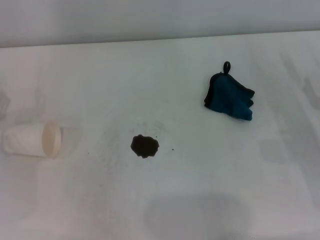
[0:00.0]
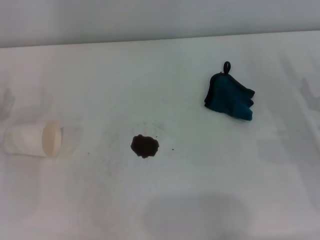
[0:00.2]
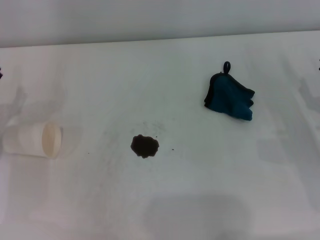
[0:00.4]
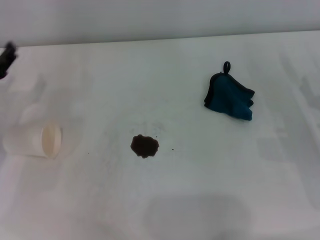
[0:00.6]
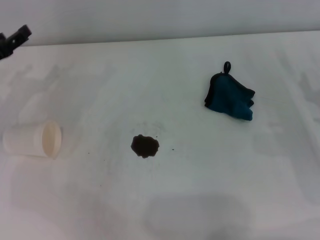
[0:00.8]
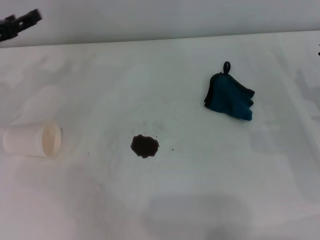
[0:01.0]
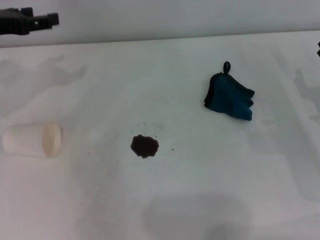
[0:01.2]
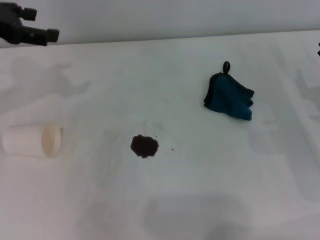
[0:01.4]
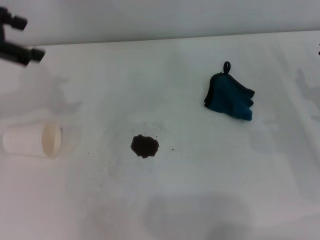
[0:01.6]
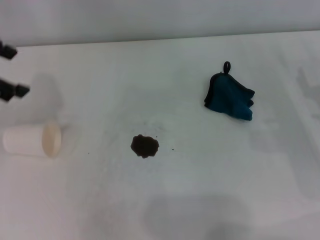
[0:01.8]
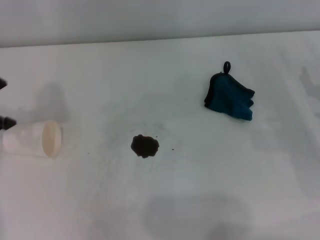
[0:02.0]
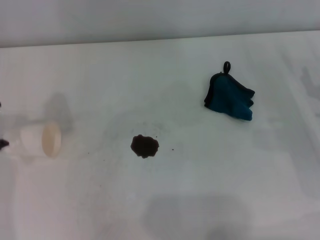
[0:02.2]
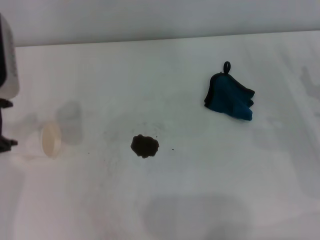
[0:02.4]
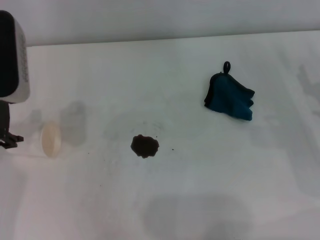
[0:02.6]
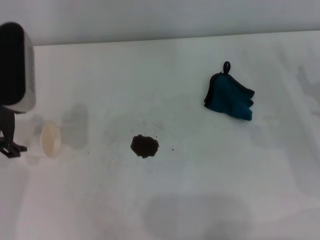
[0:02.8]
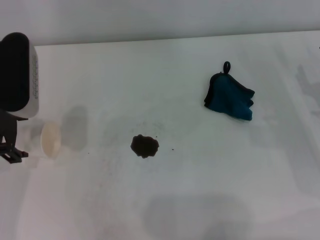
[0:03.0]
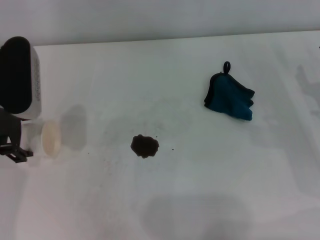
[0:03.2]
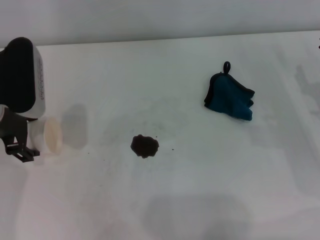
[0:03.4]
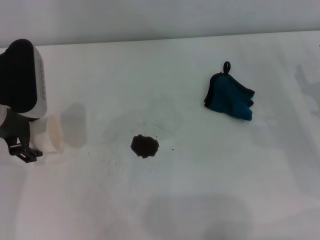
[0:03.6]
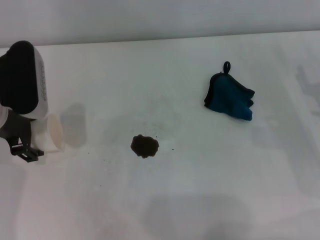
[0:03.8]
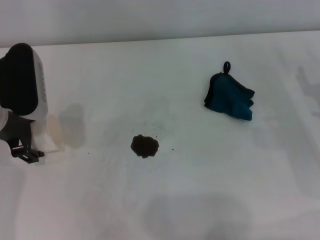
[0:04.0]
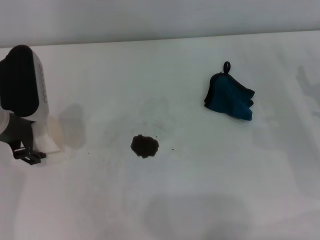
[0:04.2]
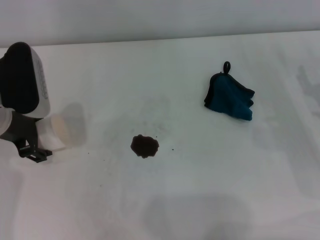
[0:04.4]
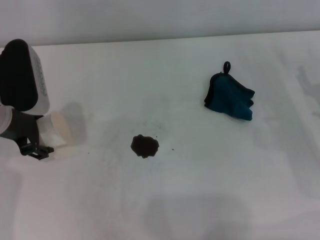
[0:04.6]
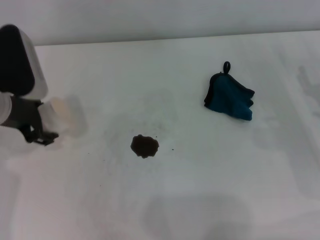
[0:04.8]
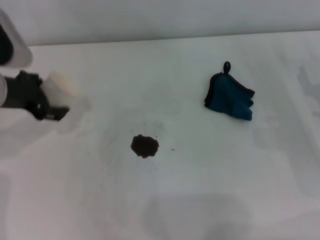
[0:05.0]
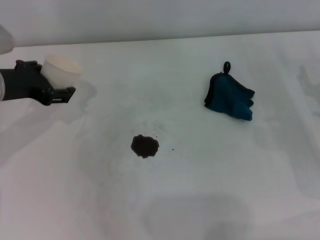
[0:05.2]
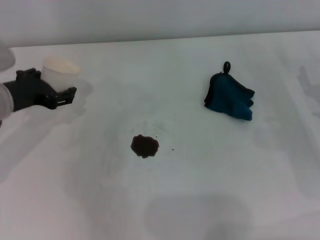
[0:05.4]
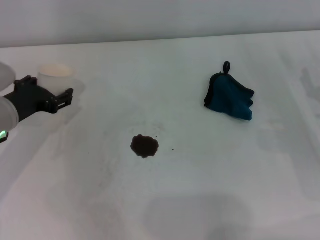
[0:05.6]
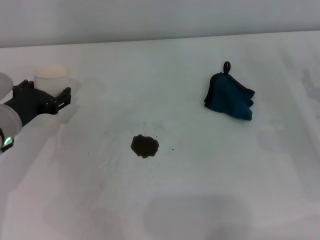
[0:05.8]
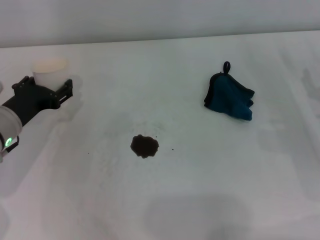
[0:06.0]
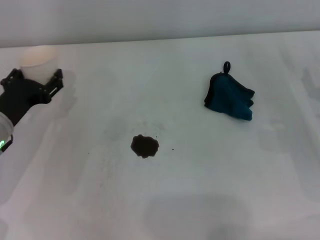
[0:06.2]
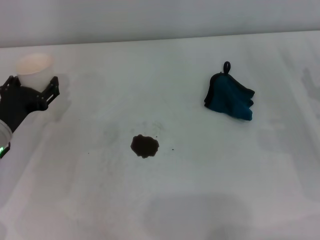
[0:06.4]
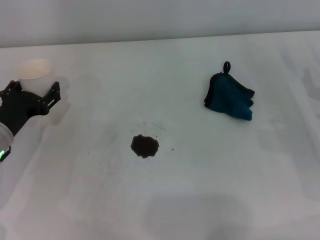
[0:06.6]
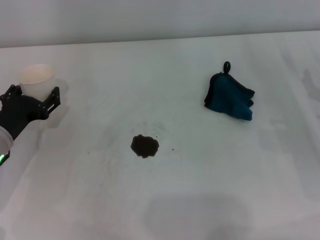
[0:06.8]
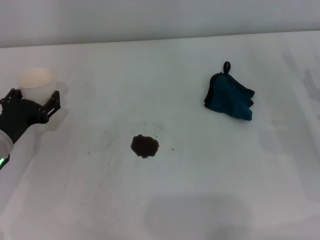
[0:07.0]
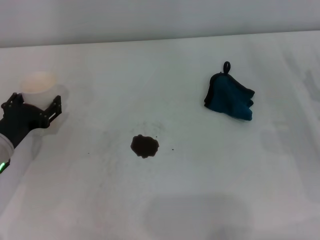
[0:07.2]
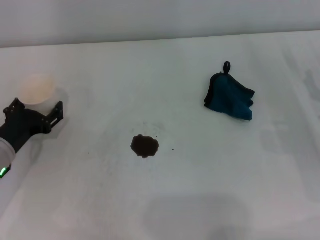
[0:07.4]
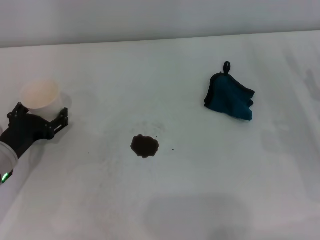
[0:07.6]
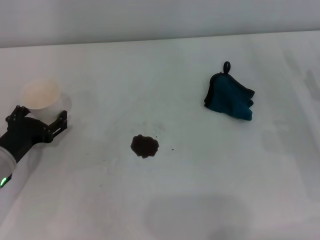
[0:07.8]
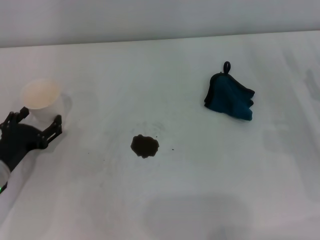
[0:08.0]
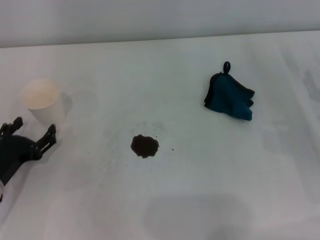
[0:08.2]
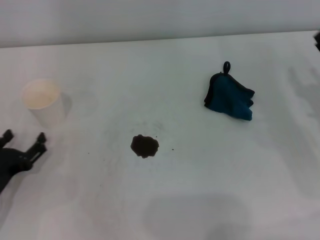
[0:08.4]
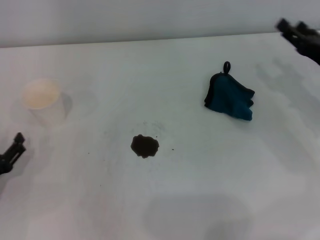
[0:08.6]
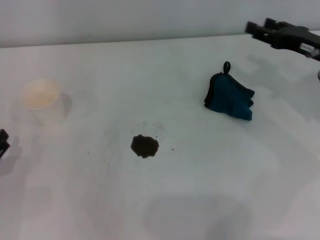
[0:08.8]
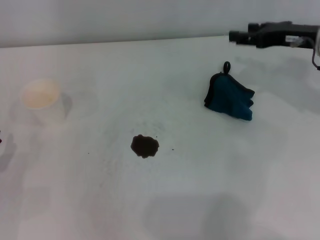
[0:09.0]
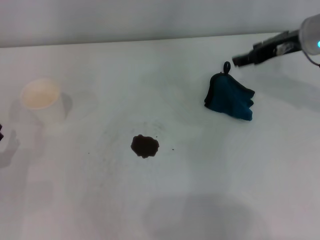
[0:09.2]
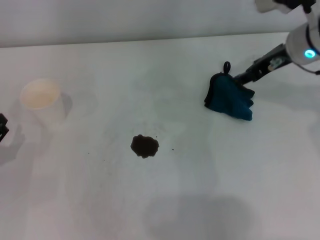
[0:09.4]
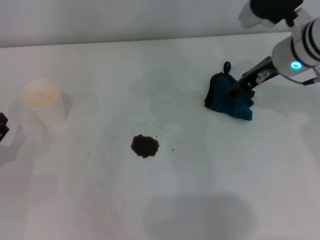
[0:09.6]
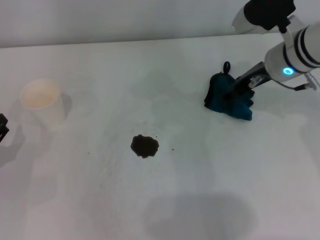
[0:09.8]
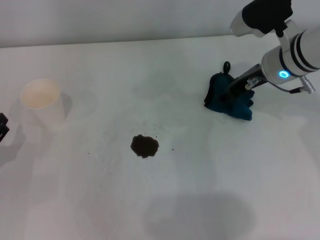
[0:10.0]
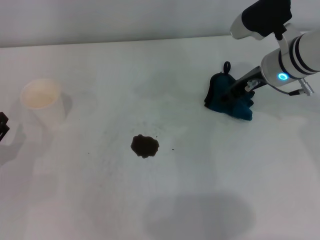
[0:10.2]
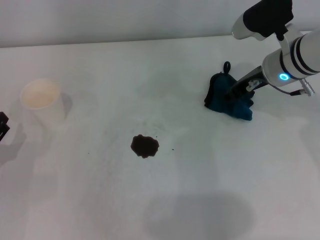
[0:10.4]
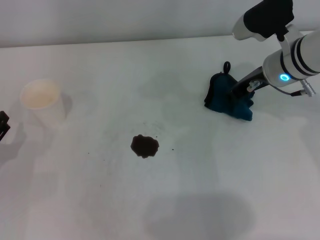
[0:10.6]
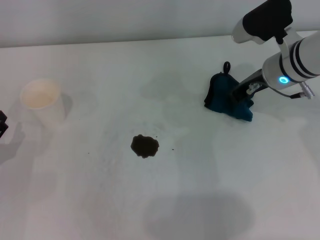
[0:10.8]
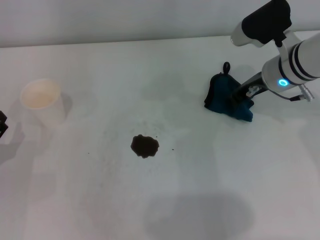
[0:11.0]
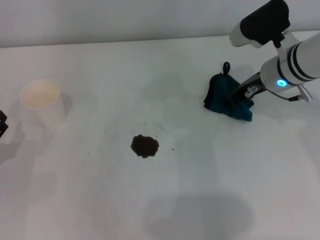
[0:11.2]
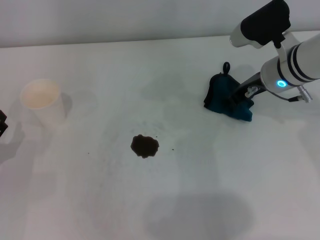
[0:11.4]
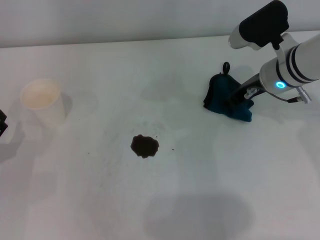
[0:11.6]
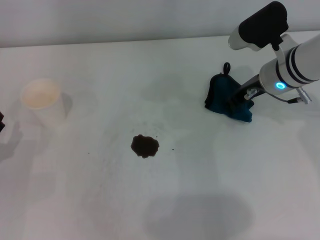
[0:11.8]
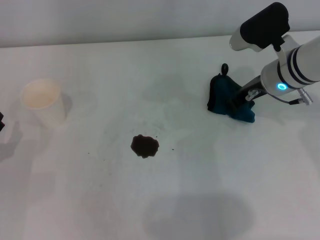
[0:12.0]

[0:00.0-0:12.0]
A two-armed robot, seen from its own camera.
Step, 0:00.0 to 0:03.2: Grasp the paper cup with the left gripper.
Step, 0:03.4 to 0:07.4: Stand the paper cup upright with the left gripper.
Step, 0:07.6 to 0:10.6: Grasp the rag with the right gripper.
0:00.0 to 0:01.6: The left gripper shifts some 25 cm upward.
0:01.6 to 0:03.0: The left gripper heads downward and to the right, covering about 10 cm.
0:03.0 to 0:04.4: There are only small adjustments of the grippers.
0:04.4 to 0:06.0: The left gripper heads downward, covering some 10 cm.
0:06.0 to 0:07.6: The left gripper shifts by about 5 cm.
0:07.6 to 0:09.0: The right gripper is displaced upward, forward and to the left by about 15 cm; the left gripper heads backward and to the left, covering some 10 cm.
0:09.0 to 0:10.4: The right gripper is displaced to the left by approximately 5 cm.
0:10.4 to 0:12.0: The right gripper closes.

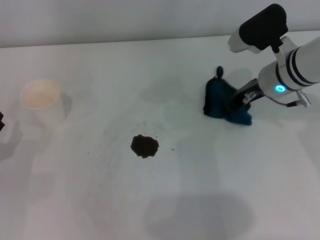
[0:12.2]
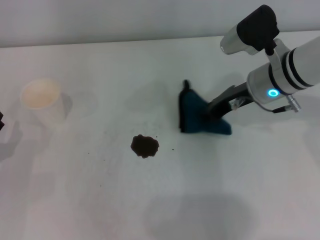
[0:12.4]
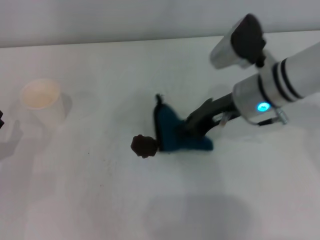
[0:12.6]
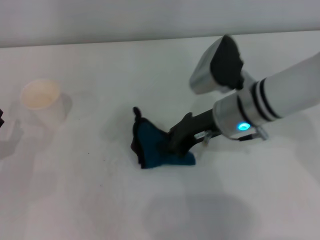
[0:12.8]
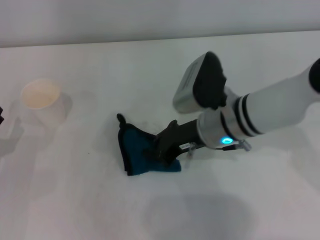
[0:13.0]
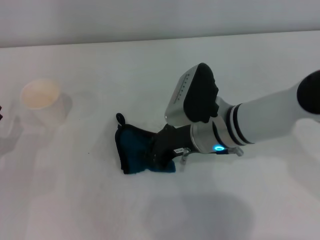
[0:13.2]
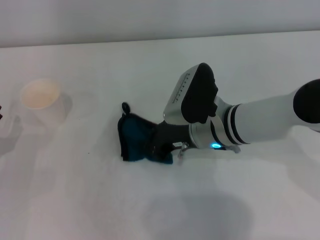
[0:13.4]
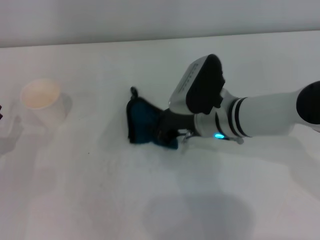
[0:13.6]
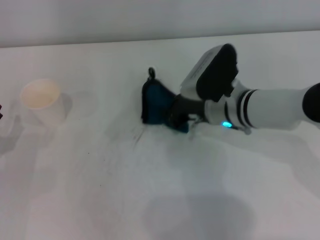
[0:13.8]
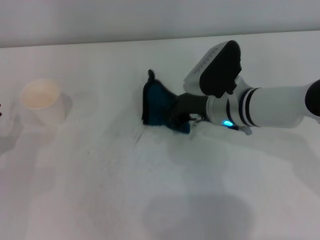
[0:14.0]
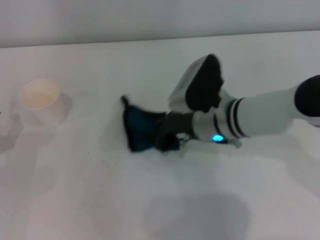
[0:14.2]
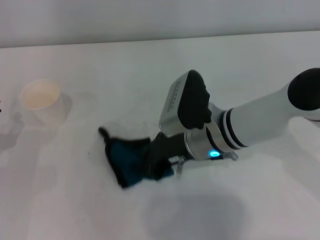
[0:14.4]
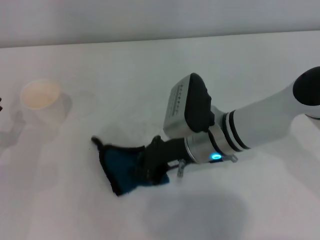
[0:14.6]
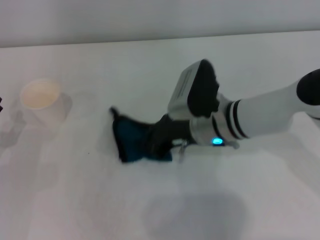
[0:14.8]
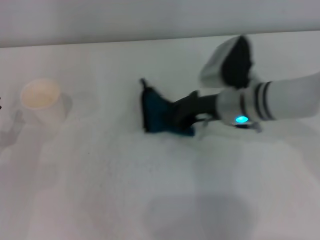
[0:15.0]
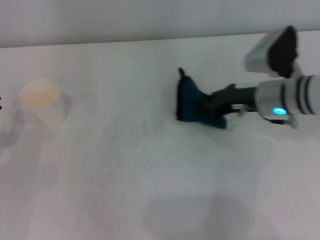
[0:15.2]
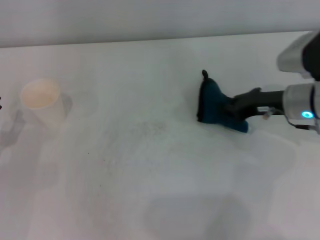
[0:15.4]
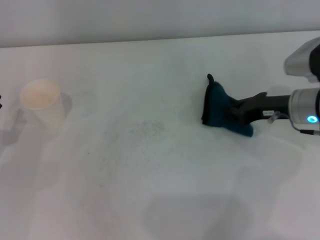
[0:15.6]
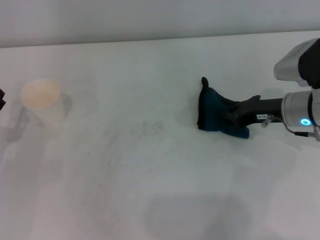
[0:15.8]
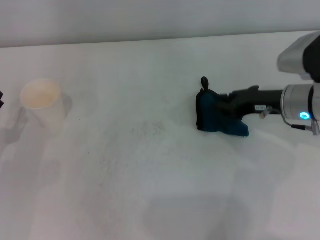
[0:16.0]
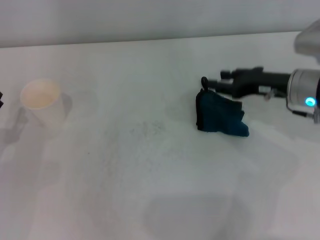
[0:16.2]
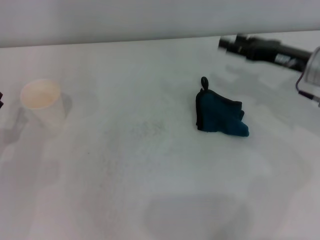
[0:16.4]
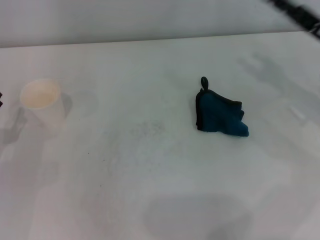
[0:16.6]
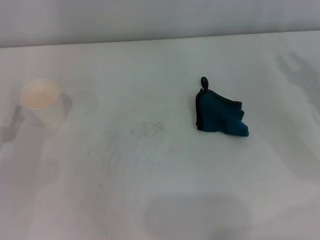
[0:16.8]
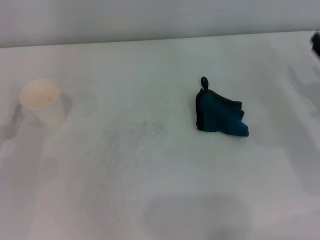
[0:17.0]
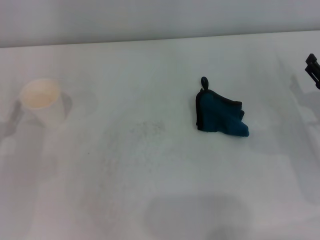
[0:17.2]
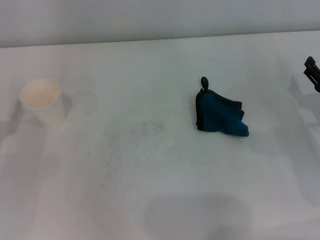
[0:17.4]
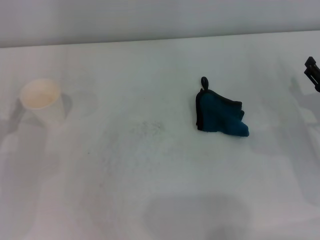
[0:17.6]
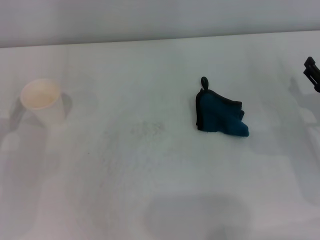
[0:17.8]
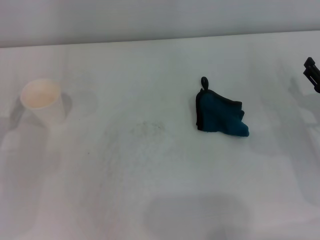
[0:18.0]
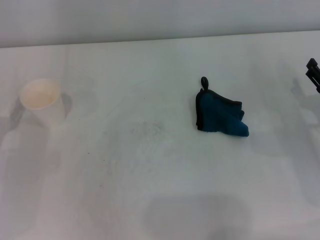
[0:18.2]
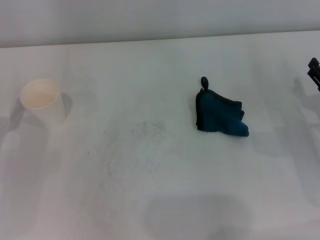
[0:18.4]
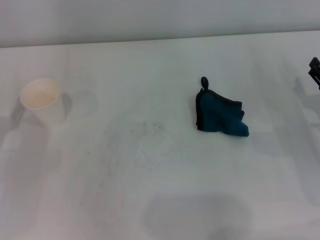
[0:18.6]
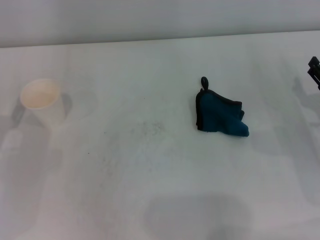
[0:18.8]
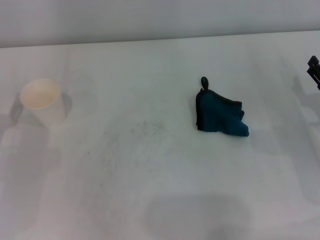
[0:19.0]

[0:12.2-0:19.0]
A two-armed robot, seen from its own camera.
Step, 0:12.2 to 0:15.2: Wipe the stains off the table with the right gripper.
Step, 0:15.4 to 0:15.8: Place the rag on the table with the right gripper.
0:12.2 to 0:13.6: The right gripper shifts some 10 cm to the left.
0:15.0 to 0:16.2: The right gripper is displaced to the right by roughly 10 cm.
0:16.2 to 0:17.6: The right gripper is displaced to the right, backward and downward by some 15 cm, and opens up.
0:17.6 to 0:19.0: Both grippers stay put.

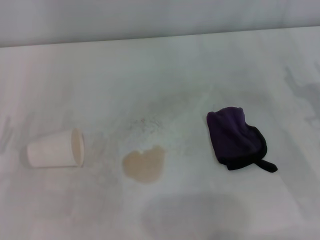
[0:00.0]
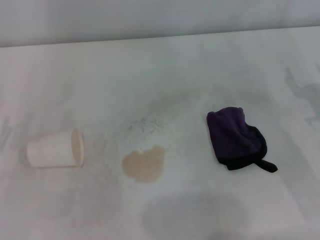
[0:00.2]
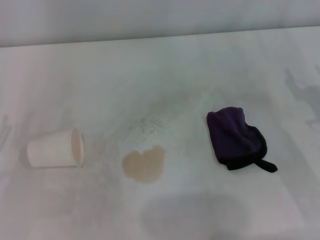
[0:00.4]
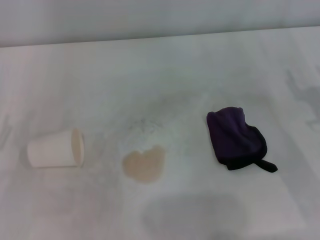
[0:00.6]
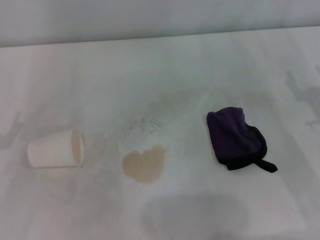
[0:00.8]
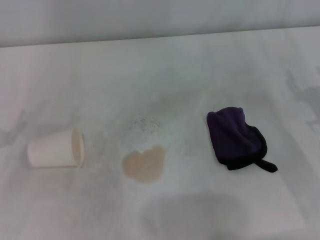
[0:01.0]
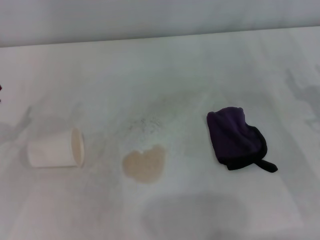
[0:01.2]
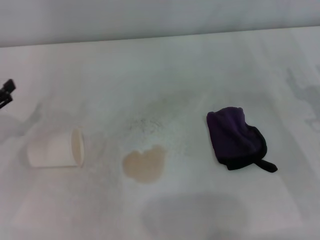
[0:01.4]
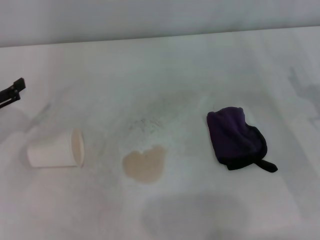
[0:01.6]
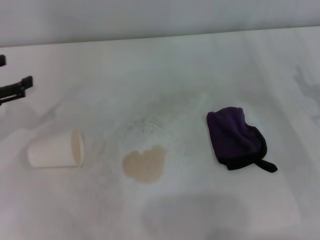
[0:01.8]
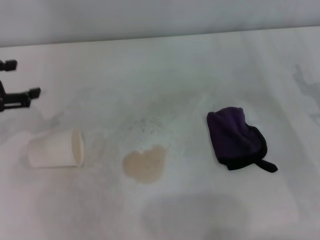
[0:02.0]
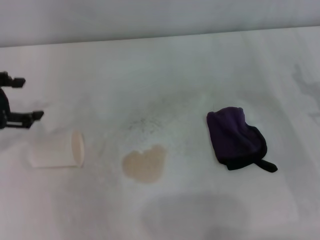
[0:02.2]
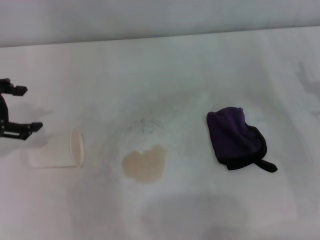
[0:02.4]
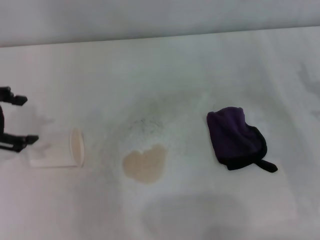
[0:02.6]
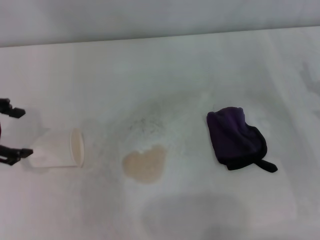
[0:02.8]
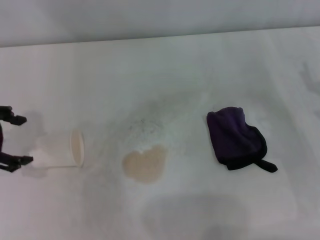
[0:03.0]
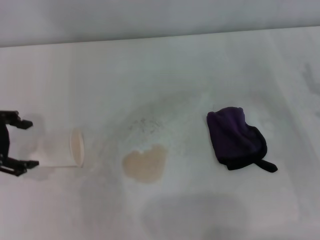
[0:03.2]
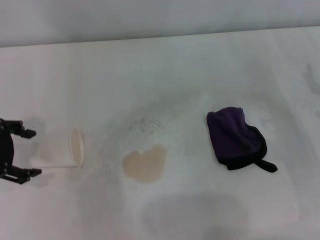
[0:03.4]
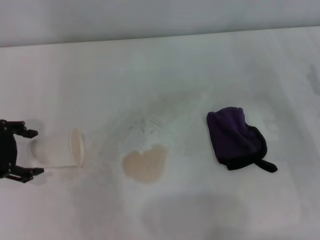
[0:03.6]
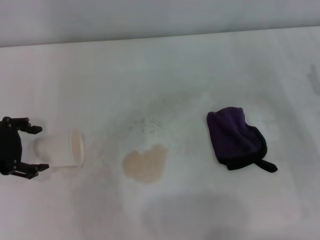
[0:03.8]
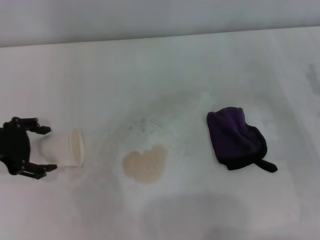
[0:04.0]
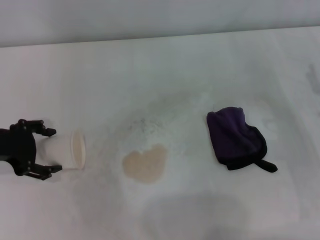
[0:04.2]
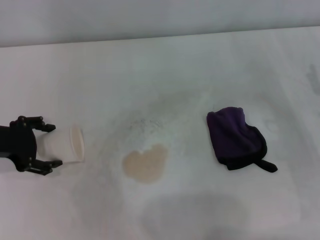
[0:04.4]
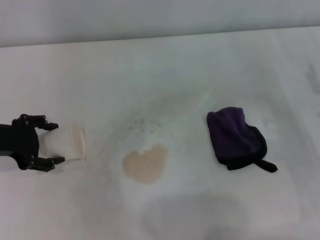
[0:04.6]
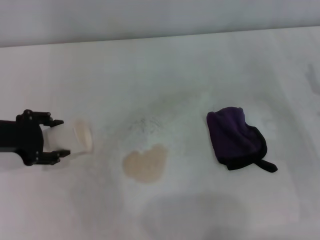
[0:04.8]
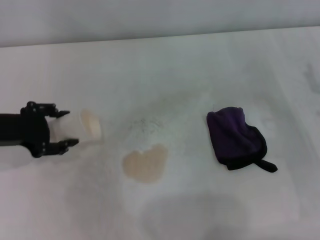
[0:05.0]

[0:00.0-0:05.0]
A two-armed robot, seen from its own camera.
Step, 0:00.0 to 0:04.6: Grasp the paper cup with the left gripper.
0:00.0 to 0:01.6: The left gripper heads forward, covering some 10 cm.
0:01.6 to 0:03.4: The left gripper moves upward and to the right, approximately 10 cm.
0:03.4 to 0:05.0: The left gripper closes.
